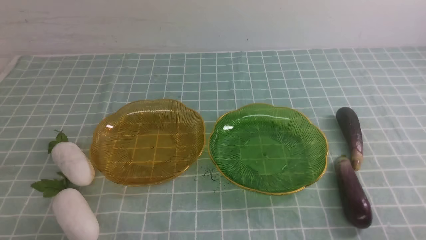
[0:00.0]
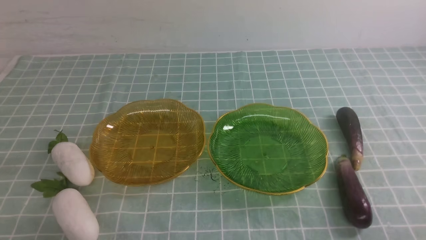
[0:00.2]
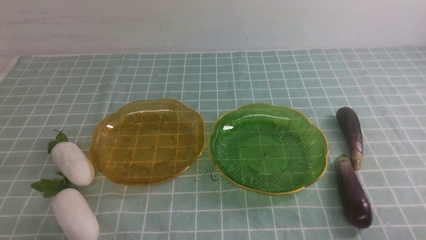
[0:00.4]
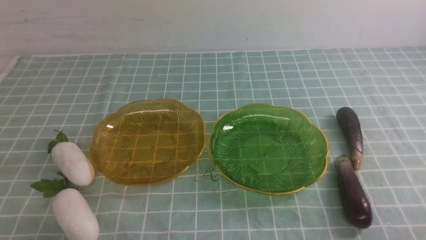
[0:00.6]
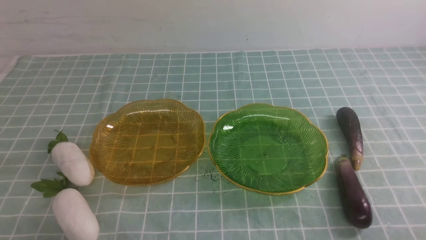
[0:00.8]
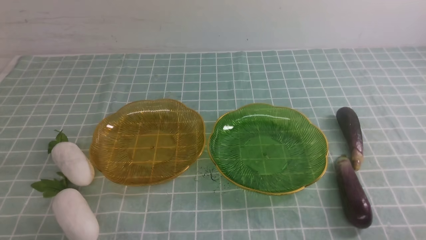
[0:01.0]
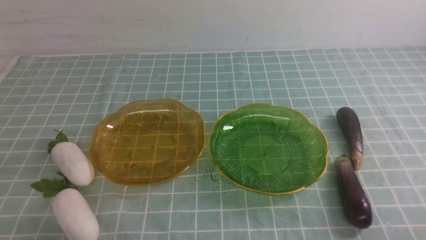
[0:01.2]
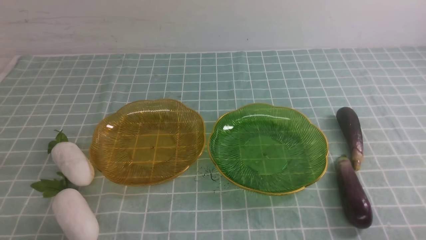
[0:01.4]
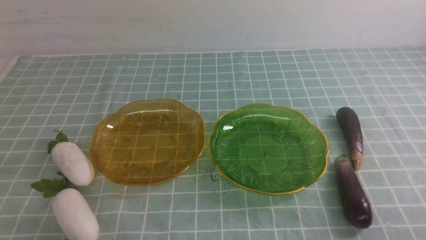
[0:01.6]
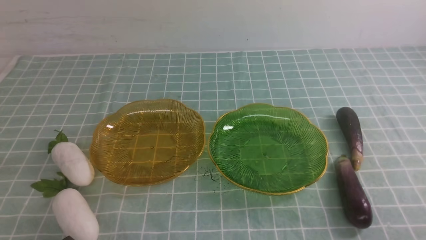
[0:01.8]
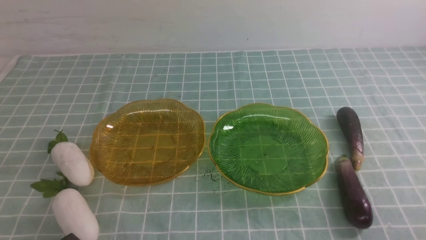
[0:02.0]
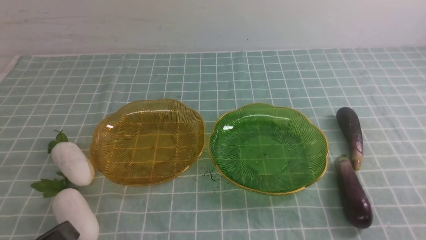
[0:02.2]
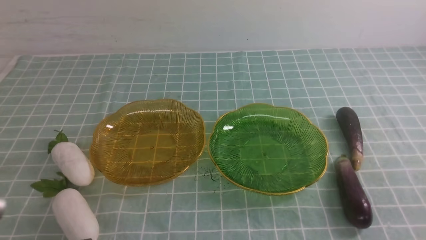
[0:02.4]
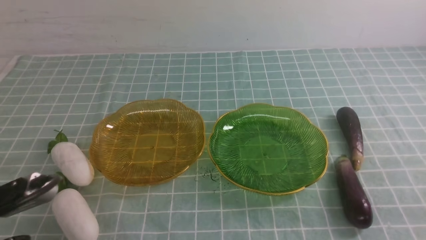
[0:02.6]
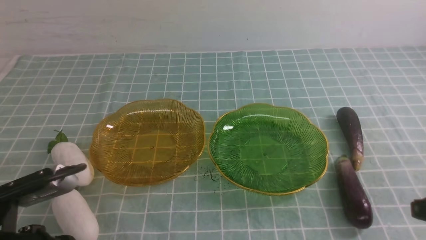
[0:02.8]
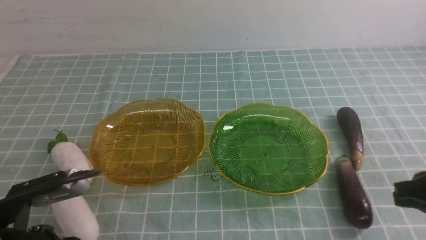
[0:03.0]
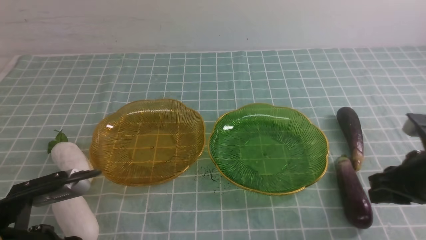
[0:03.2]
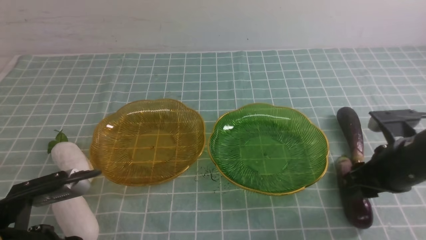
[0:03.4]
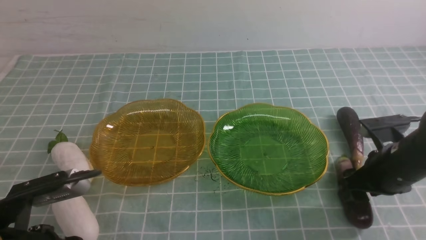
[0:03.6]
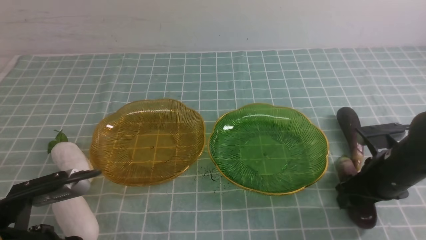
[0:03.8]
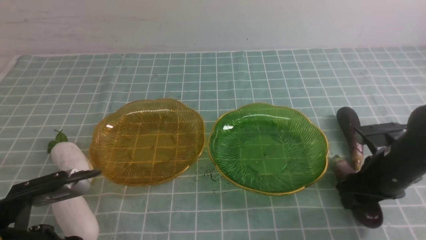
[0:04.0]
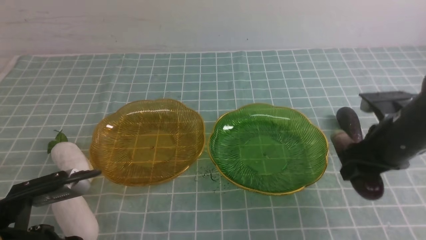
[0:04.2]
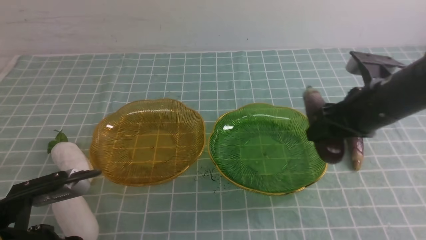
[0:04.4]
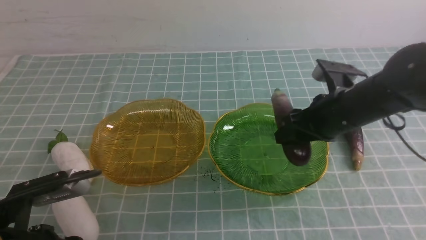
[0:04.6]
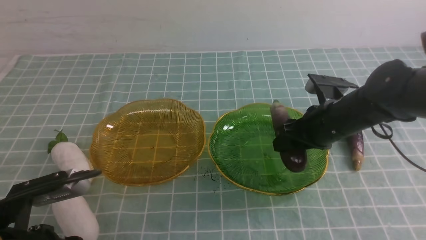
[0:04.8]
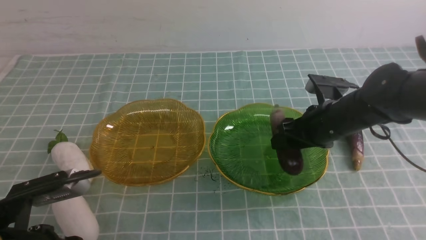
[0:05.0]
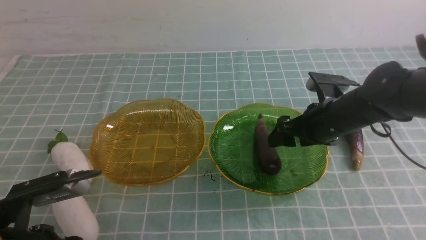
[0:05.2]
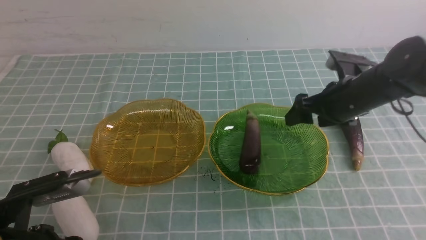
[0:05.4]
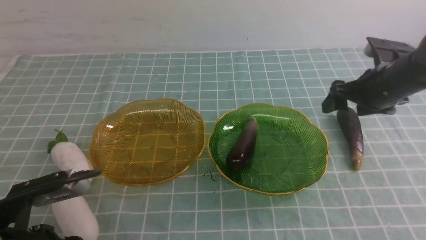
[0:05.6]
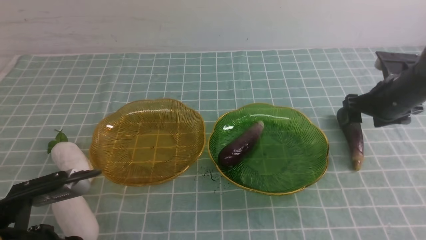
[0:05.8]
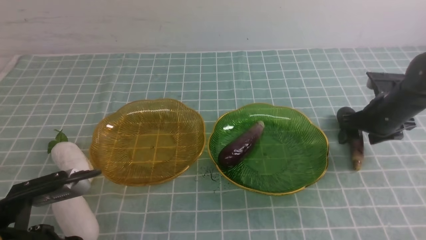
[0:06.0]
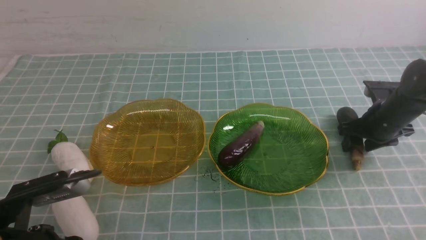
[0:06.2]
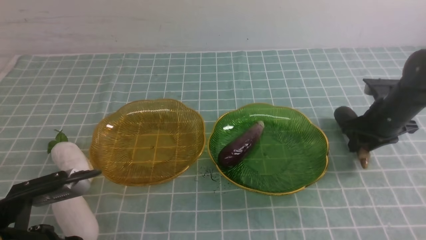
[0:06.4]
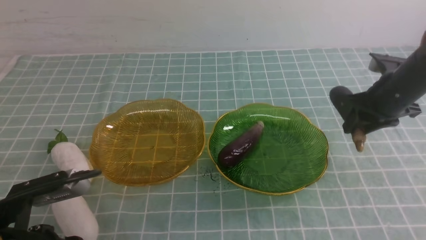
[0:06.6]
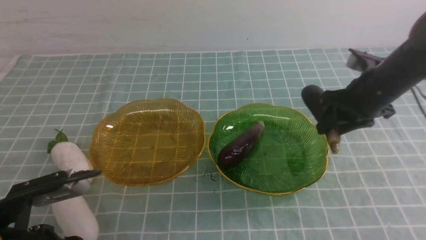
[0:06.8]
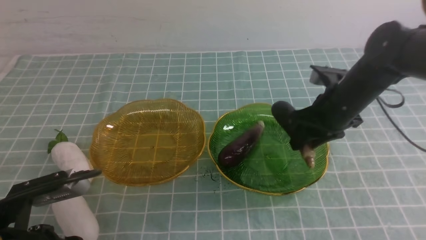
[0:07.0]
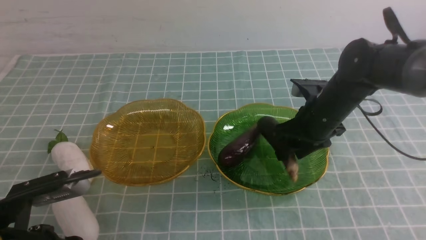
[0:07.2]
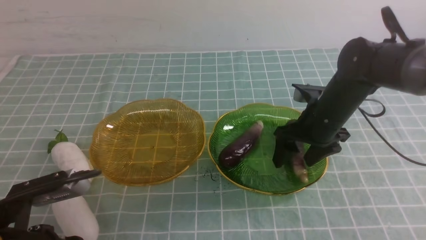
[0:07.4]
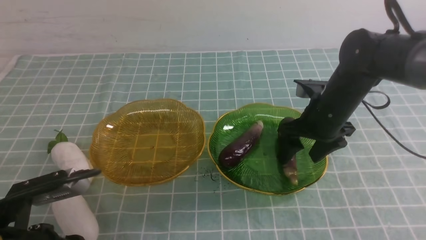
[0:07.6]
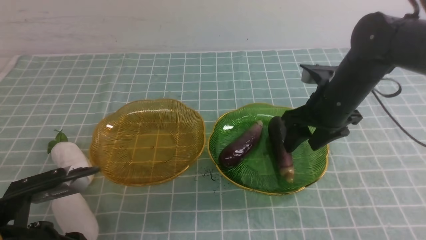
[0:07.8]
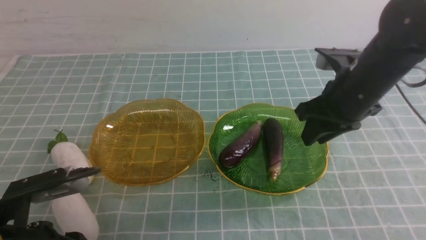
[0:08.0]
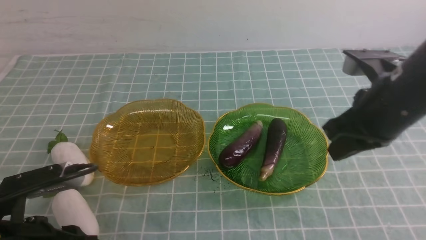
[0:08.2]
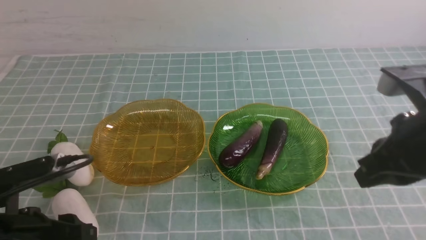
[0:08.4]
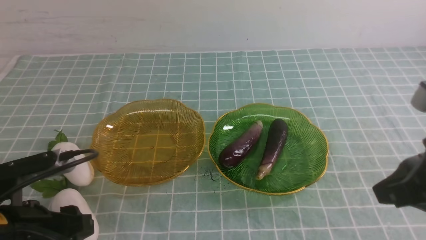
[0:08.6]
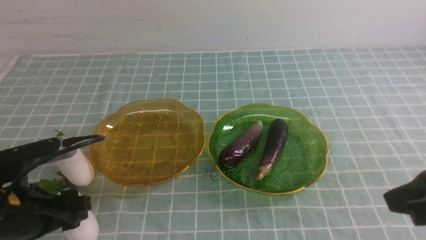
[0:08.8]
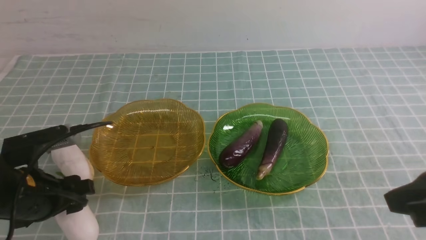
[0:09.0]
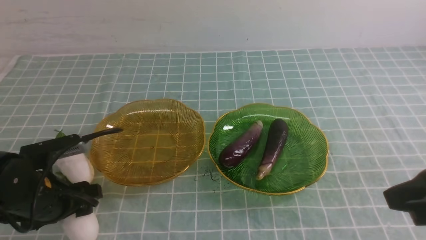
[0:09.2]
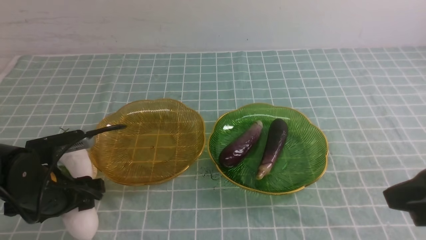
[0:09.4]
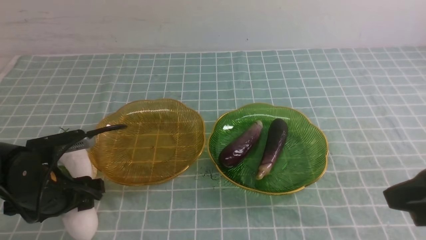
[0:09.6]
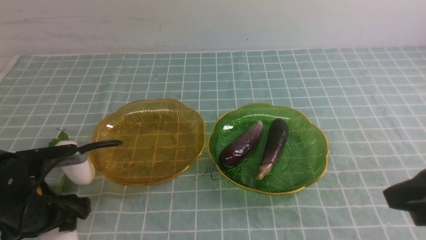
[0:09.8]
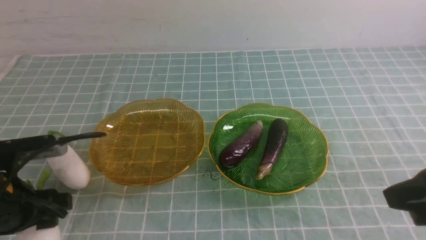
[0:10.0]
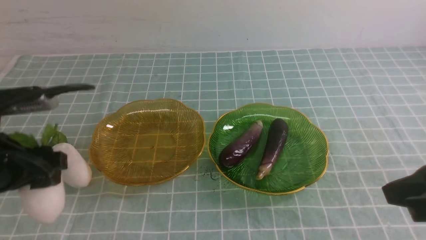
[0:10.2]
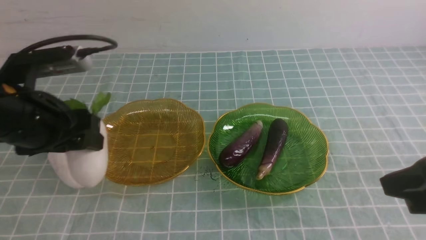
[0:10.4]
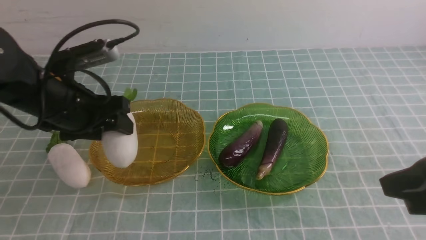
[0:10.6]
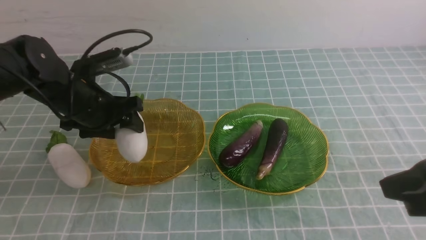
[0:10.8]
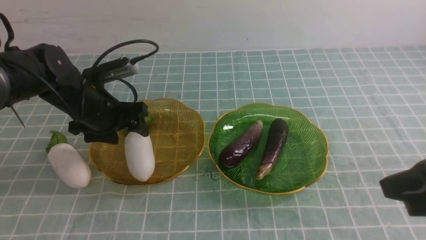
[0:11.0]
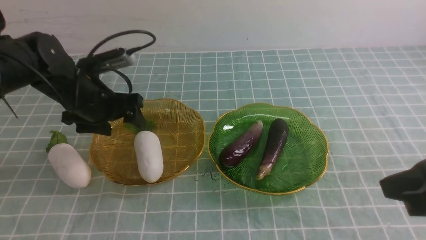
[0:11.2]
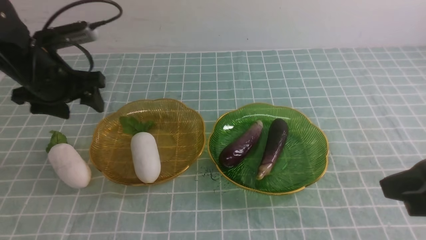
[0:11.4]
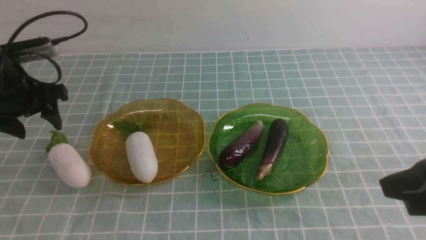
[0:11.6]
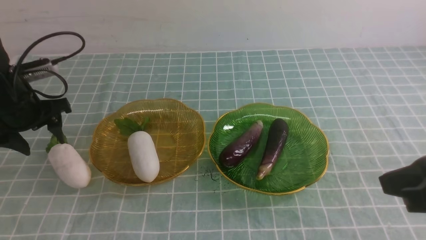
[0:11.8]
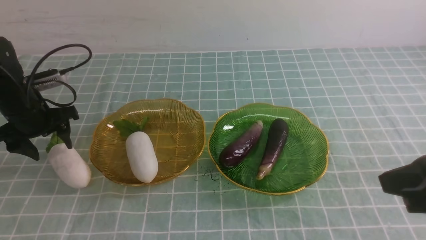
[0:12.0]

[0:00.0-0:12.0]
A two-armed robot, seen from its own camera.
Step, 0:00.0 to 0:05.2: use the right arm to grab an eggplant and put it into the right plate.
Step, 0:05.4 to 0:07.6: use the right arm to grab an eggplant and put it into the right plate.
Step, 0:07.8 to 0:11.0: use the left arm to grab a radish and put it into the left plate.
0:01.6 to 0:03.0: The left gripper moves forward and upward, roughly 10 cm; the right gripper moves forward, about 15 cm.
0:03.0 to 0:04.4: The right gripper is displaced forward and to the left by about 10 cm, and opens up.
0:04.4 to 0:06.0: The right gripper heads to the right, forward and downward, covering about 15 cm.
0:06.0 to 0:07.6: The right gripper travels to the left and upward by roughly 15 cm, and closes, then reopens.
0:07.6 to 0:09.0: The left gripper moves forward, some 10 cm, and opens up. The right gripper shifts approximately 25 cm backward and upward, and closes up.
0:09.0 to 0:10.4: The left gripper shifts approximately 10 cm upward.
0:10.4 to 0:12.0: The left gripper shifts roughly 20 cm forward, to the left and downward.

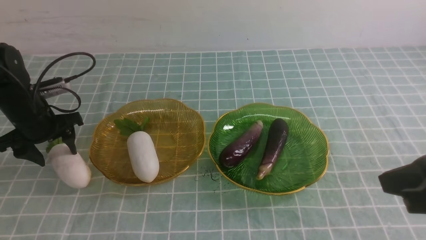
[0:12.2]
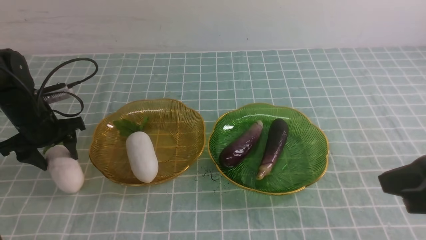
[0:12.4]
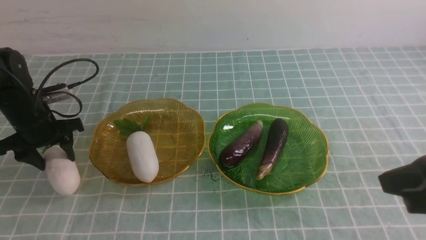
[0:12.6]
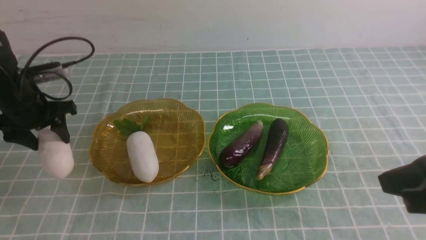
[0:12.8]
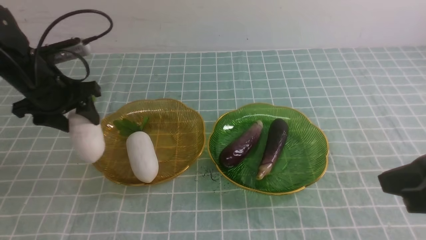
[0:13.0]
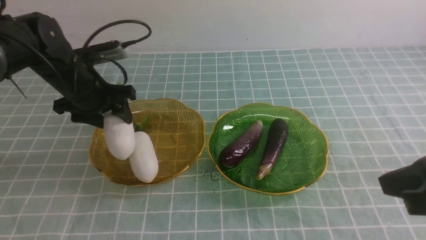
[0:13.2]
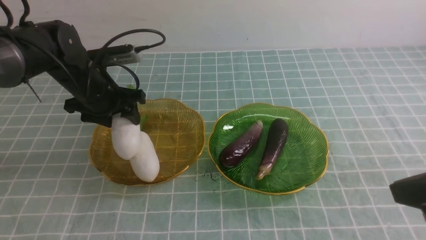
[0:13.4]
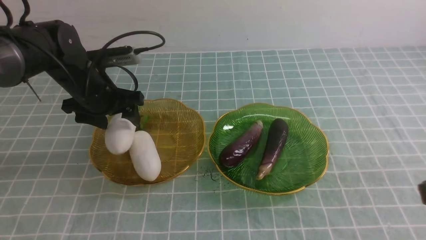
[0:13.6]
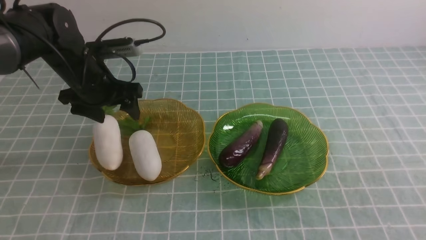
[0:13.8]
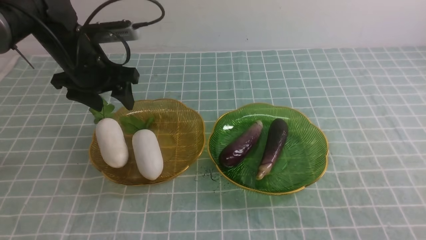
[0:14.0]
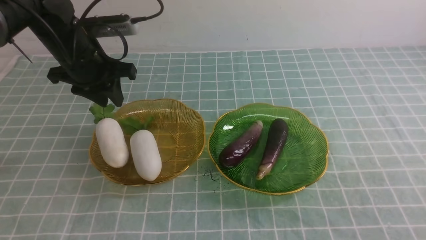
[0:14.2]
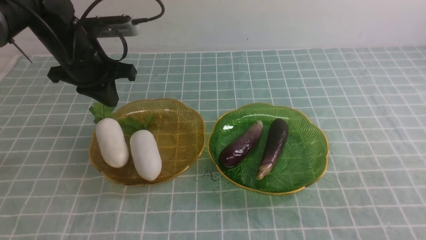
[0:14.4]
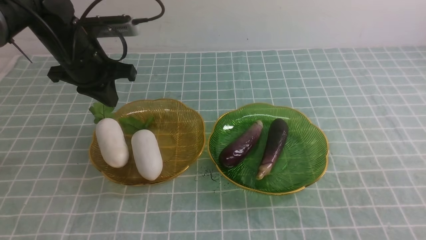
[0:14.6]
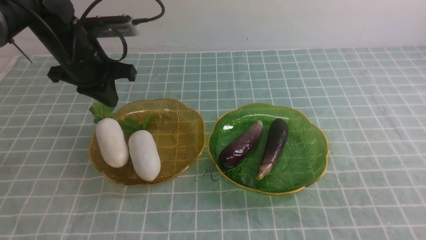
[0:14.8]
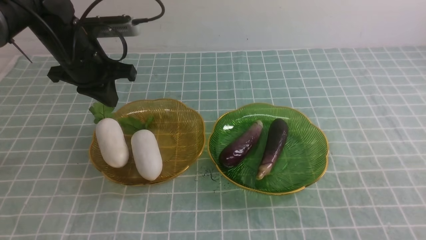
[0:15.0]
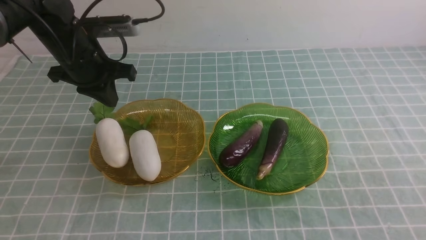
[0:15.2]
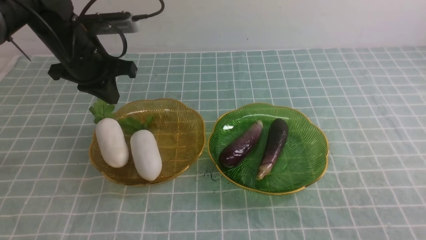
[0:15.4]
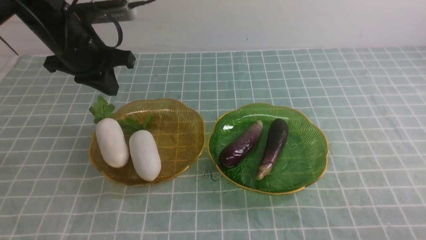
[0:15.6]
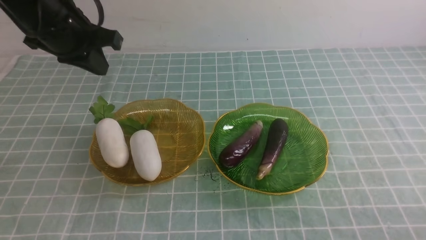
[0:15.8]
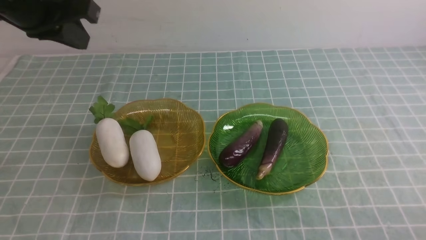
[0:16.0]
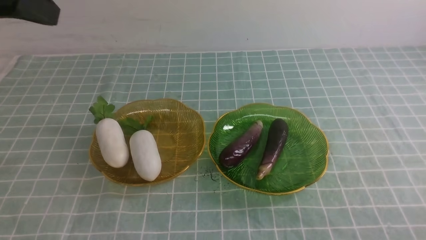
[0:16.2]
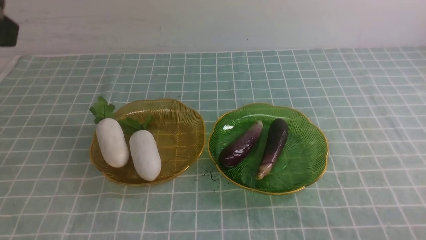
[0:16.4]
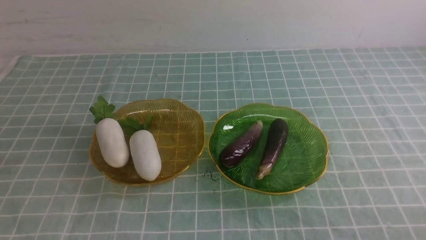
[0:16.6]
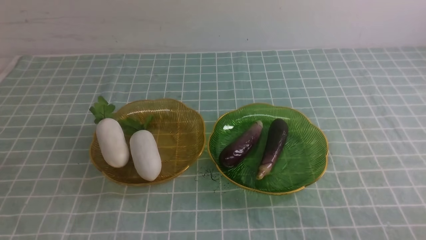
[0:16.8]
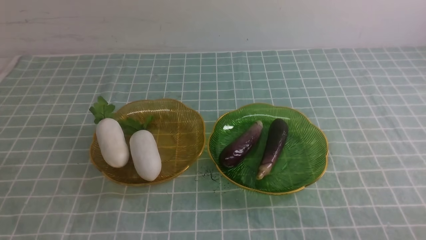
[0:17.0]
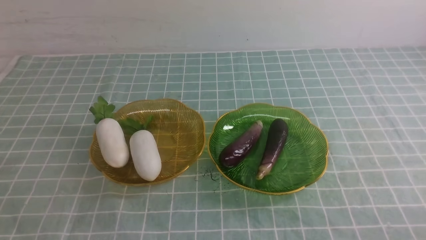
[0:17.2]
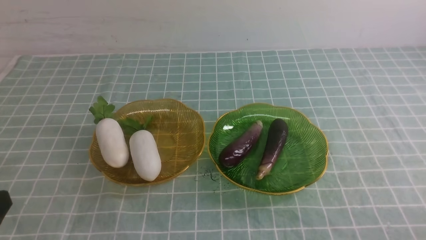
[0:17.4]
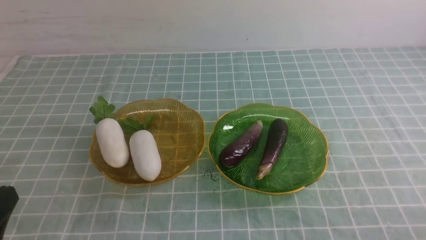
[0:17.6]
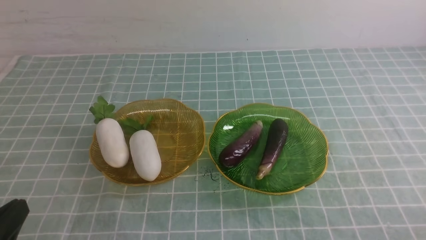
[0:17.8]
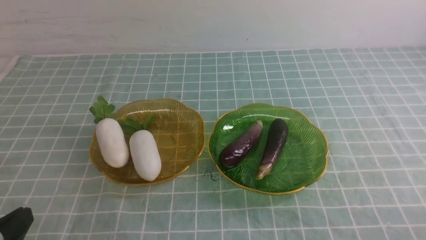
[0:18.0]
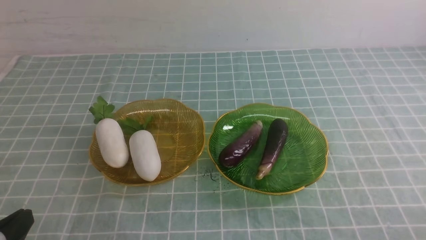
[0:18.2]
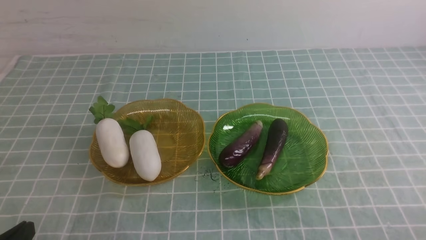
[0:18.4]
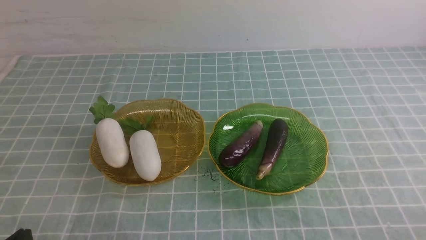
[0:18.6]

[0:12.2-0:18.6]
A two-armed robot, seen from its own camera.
Step, 0:12.2 to 0:13.6: use the left arm to grab a radish and put it into the left plate.
0:12.2 to 0:13.8: The left gripper moves to the right and upward, approximately 15 cm. Meanwhile the right gripper moves backward, some 10 cm.
0:13.8 to 0:15.4: The left gripper closes.
0:15.4 to 0:17.0: The left gripper travels backward by approximately 35 cm.
